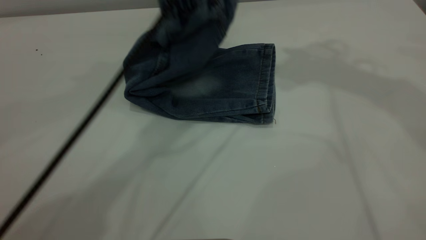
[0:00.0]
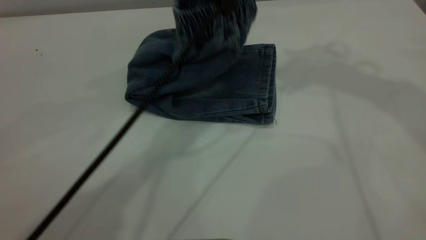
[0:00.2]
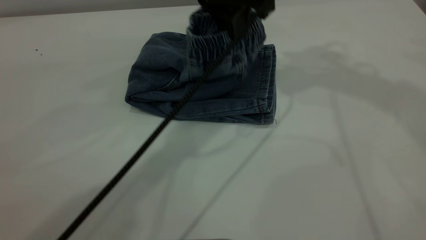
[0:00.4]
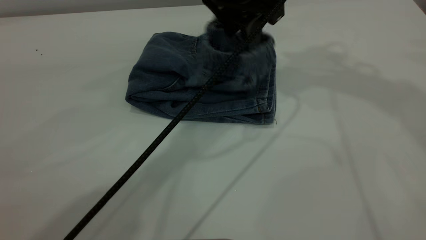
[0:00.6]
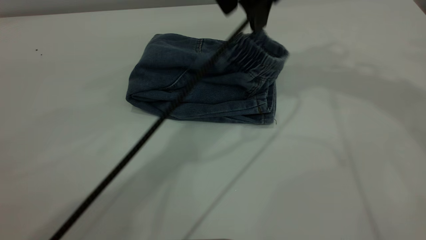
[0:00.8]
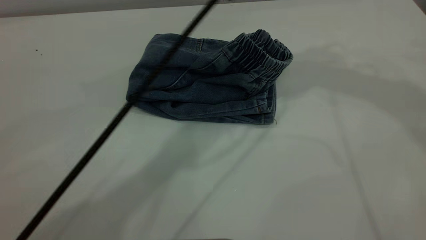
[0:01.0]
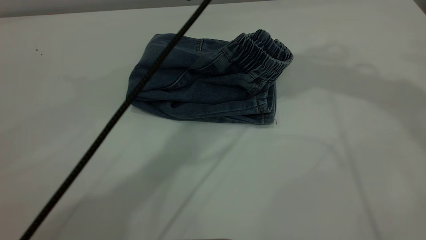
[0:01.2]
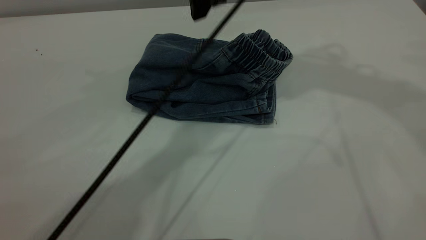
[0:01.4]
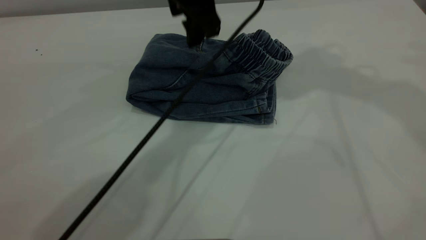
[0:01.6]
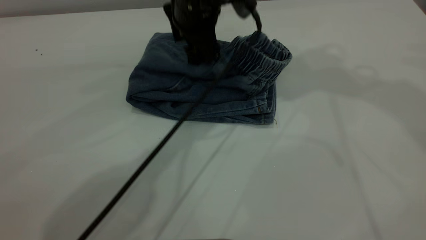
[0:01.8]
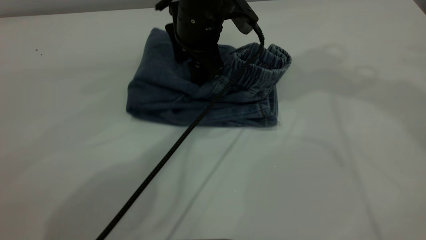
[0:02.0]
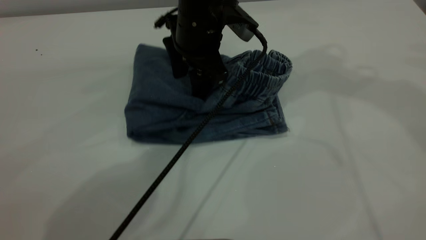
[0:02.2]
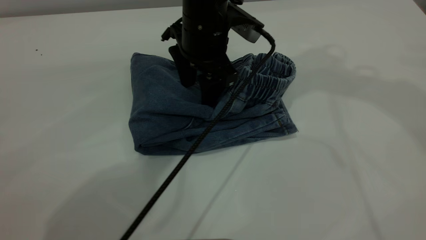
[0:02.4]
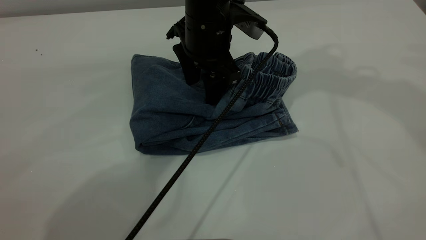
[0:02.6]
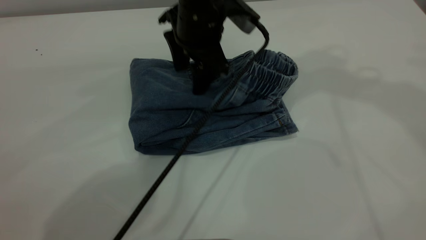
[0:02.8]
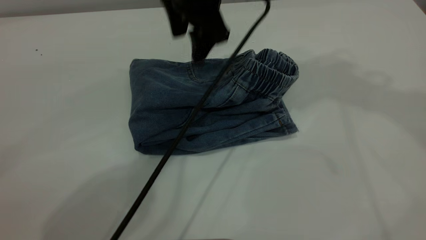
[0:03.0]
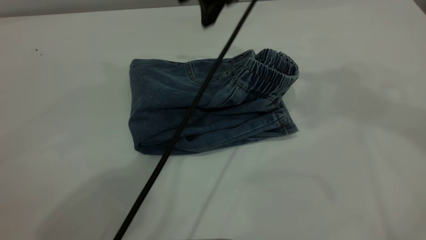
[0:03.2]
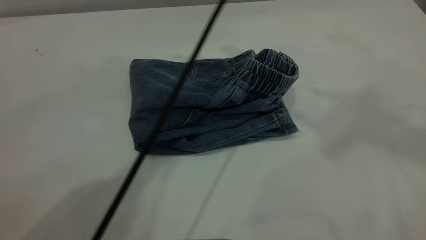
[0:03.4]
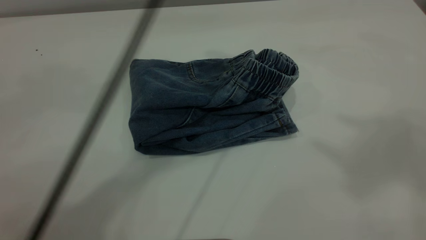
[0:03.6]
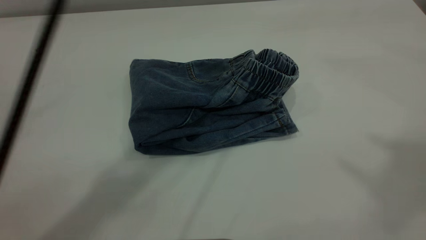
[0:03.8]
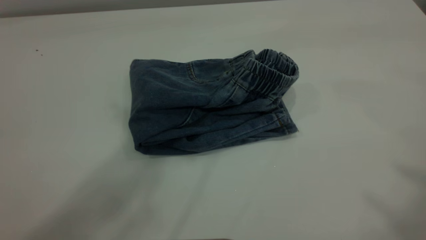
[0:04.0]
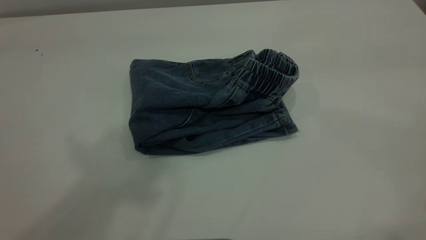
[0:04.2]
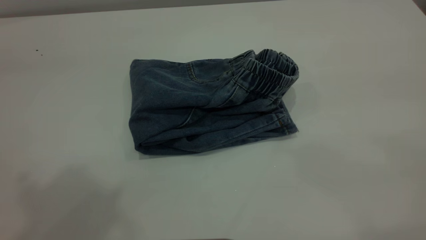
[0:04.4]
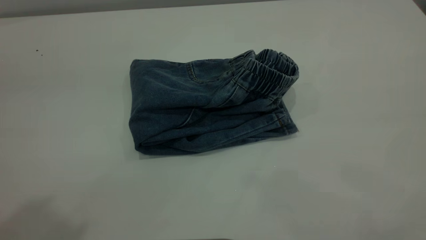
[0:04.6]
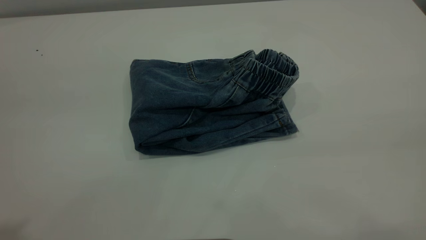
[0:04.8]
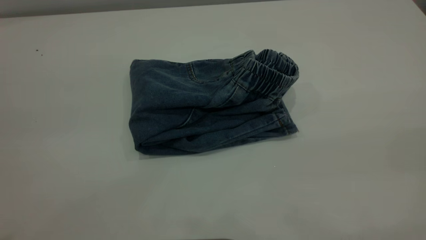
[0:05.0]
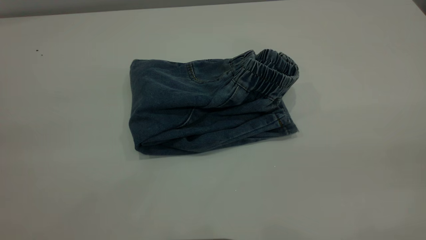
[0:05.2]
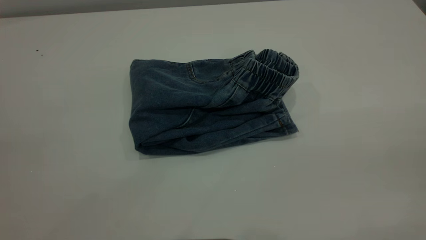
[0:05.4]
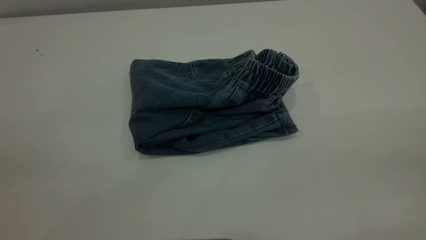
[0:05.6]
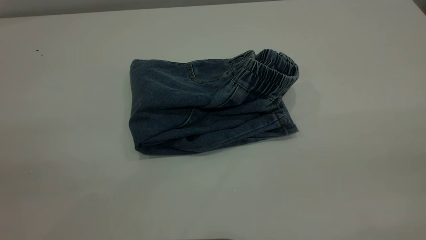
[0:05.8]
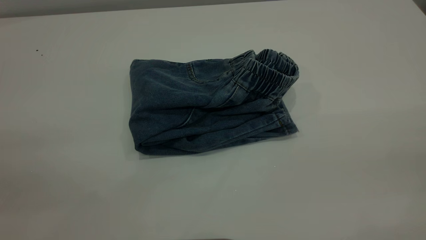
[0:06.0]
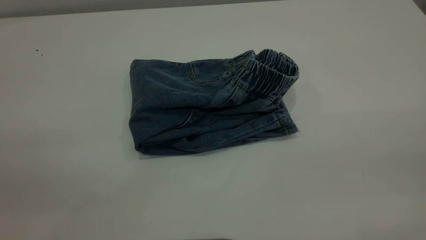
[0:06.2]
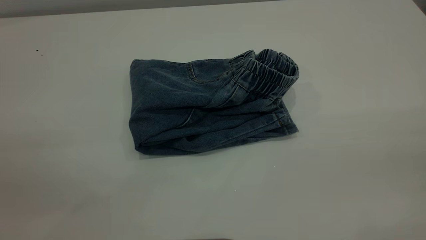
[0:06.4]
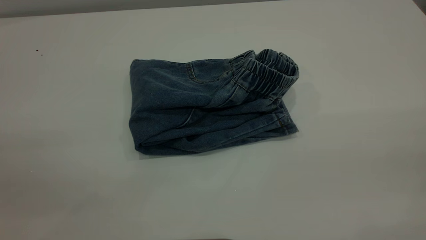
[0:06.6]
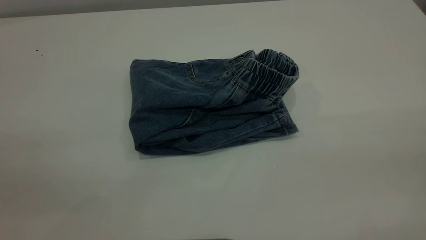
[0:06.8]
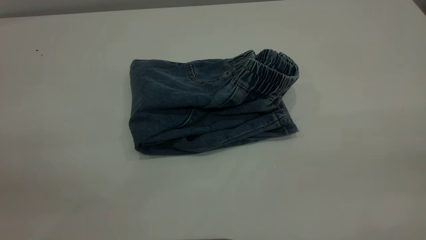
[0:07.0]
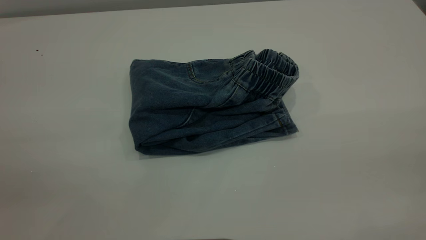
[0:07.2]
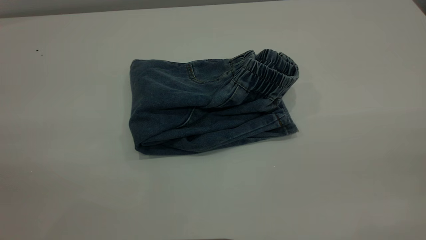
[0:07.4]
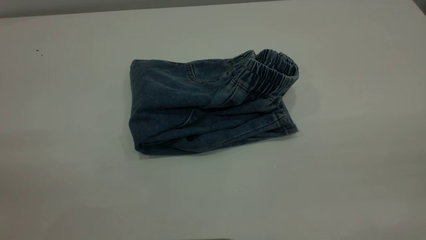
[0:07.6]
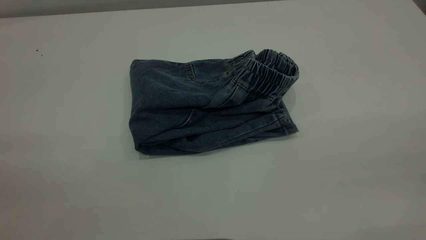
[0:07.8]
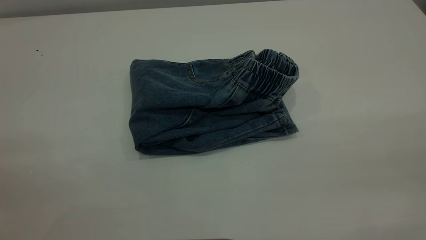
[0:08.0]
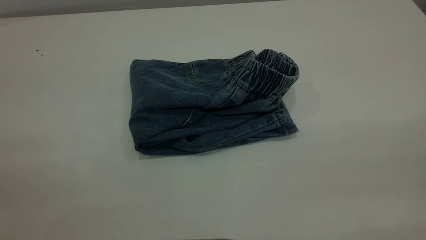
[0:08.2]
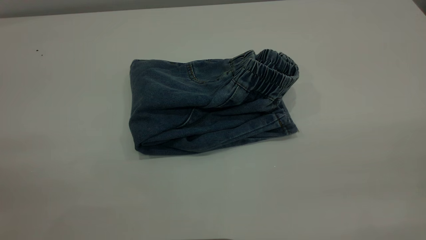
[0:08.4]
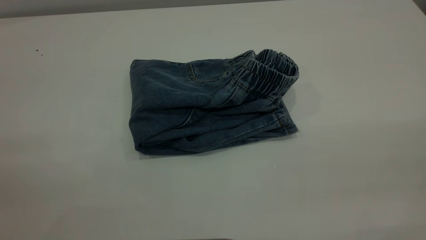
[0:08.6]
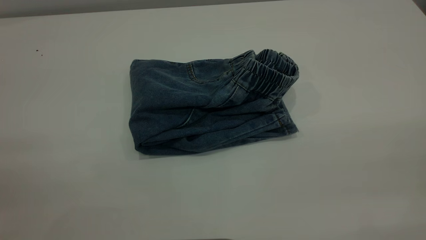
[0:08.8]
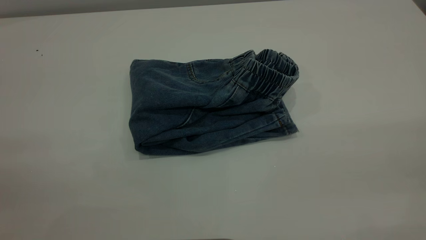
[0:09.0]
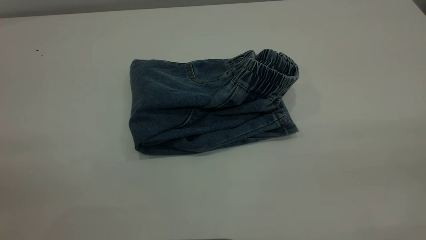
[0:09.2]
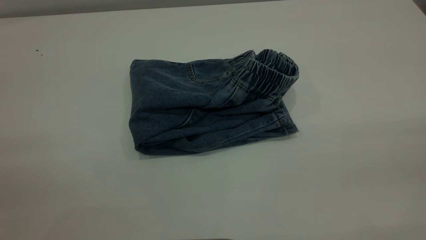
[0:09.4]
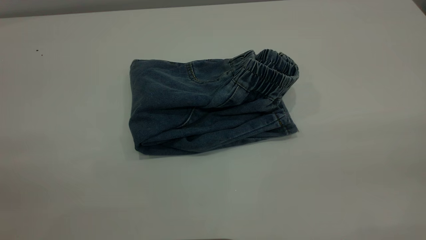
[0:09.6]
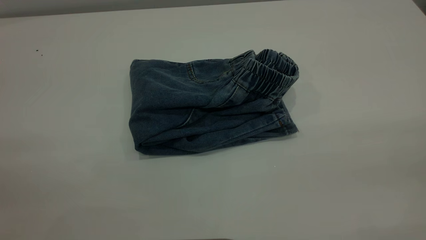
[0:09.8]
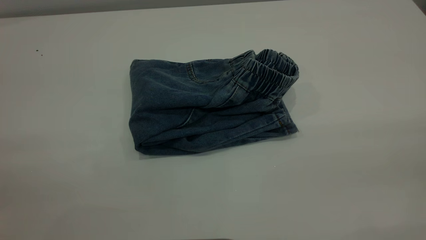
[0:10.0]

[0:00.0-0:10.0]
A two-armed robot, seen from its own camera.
0:00.0 to 0:01.4: The left gripper swings up and down, approximately 5 cm each way, with 2 reversals, and opens its fingers.
0:01.4 to 0:02.8: The left gripper moves downward, about 10 cm.
0:02.8 to 0:04.2: The left gripper shifts approximately 40 cm upward and backward. Meanwhile the right gripper heads backward, covering some 30 cm.
